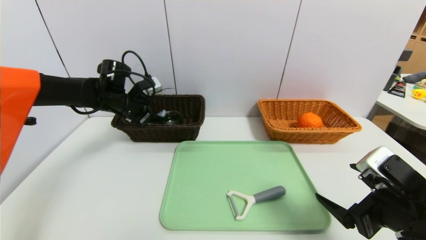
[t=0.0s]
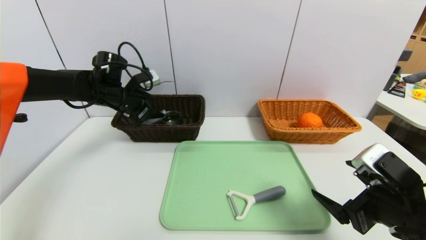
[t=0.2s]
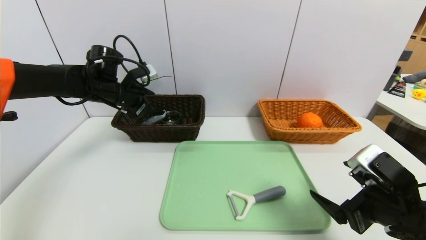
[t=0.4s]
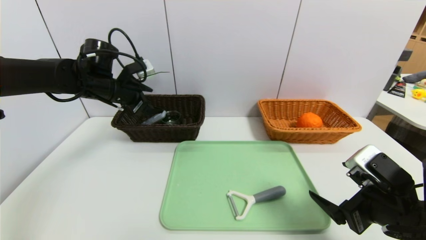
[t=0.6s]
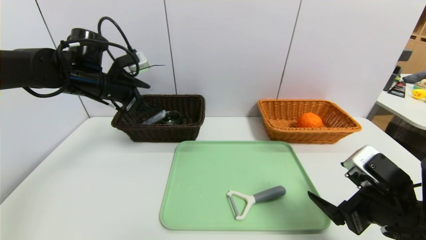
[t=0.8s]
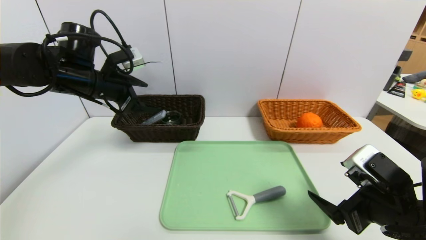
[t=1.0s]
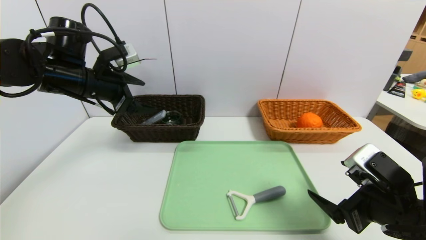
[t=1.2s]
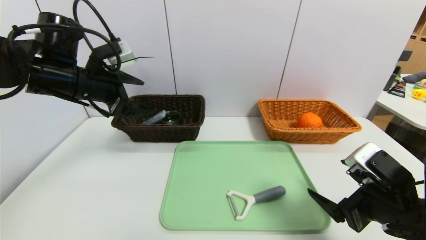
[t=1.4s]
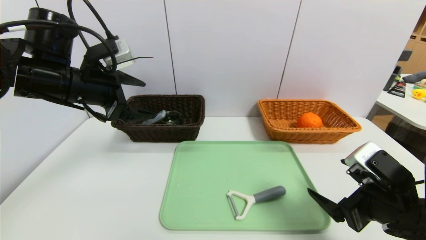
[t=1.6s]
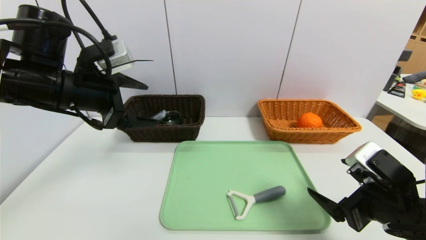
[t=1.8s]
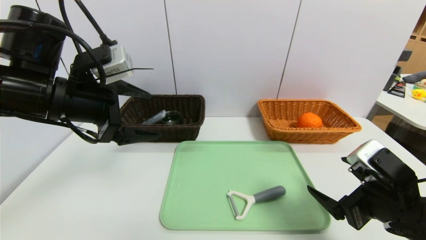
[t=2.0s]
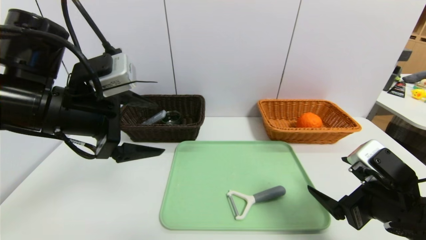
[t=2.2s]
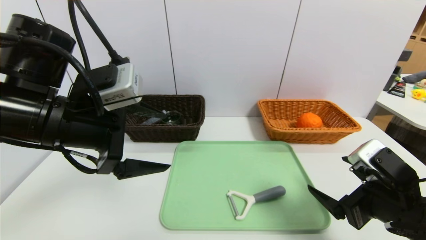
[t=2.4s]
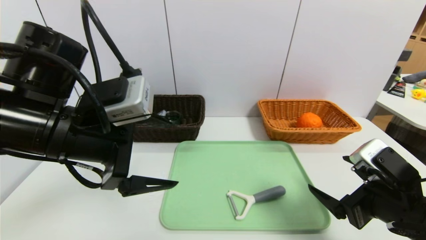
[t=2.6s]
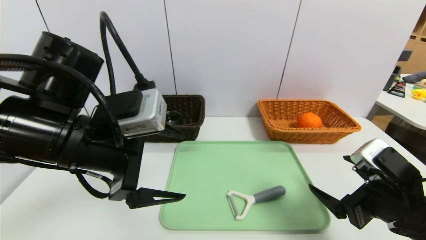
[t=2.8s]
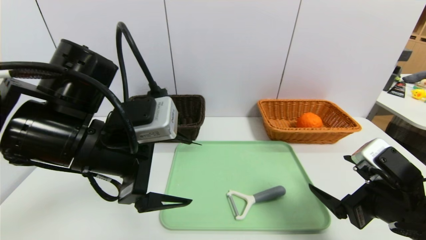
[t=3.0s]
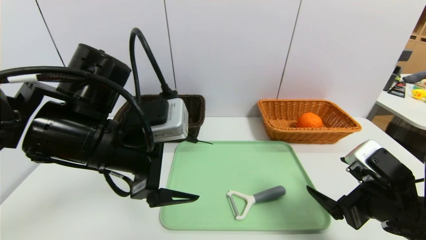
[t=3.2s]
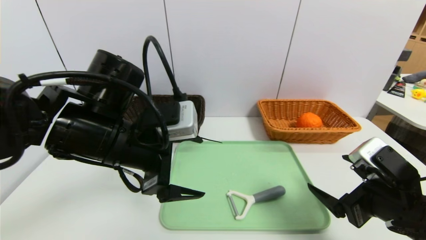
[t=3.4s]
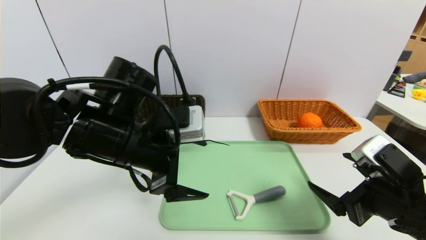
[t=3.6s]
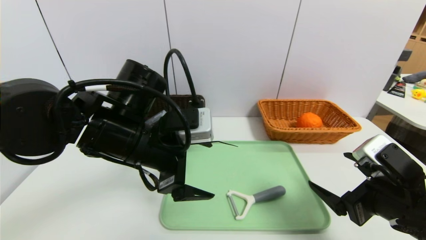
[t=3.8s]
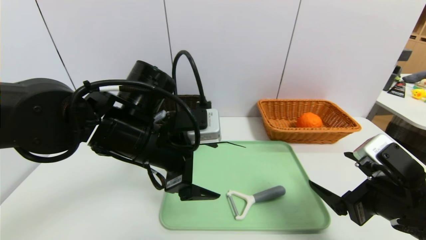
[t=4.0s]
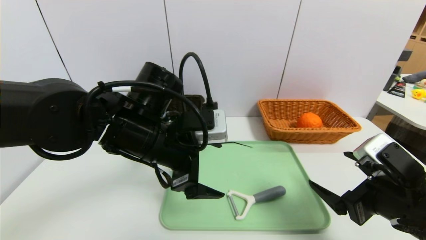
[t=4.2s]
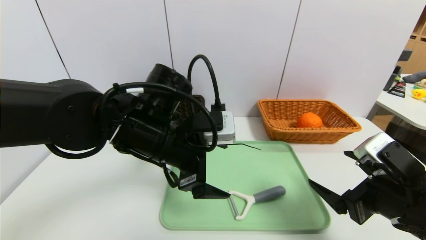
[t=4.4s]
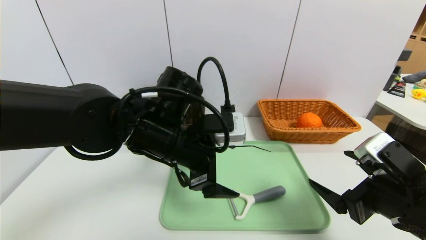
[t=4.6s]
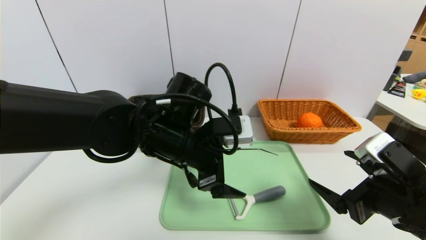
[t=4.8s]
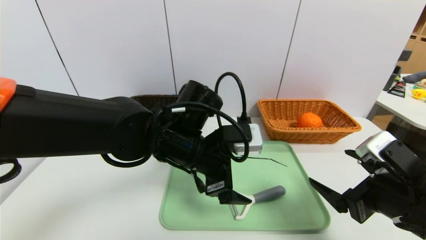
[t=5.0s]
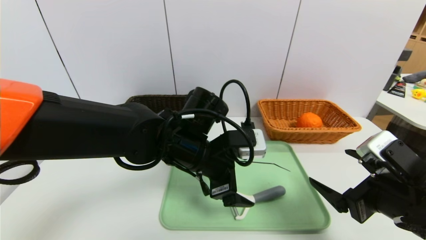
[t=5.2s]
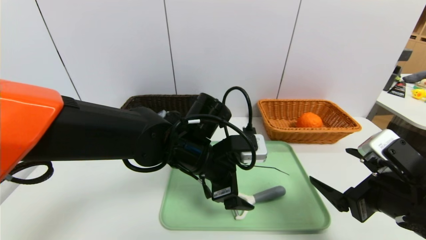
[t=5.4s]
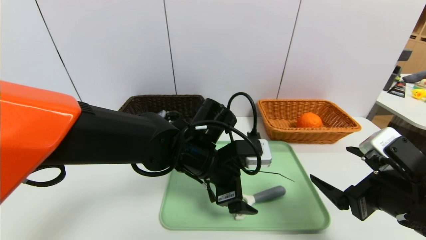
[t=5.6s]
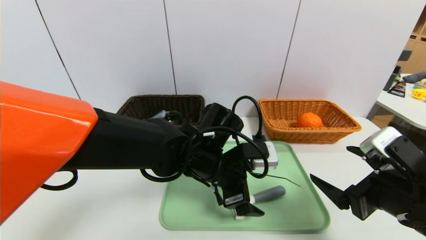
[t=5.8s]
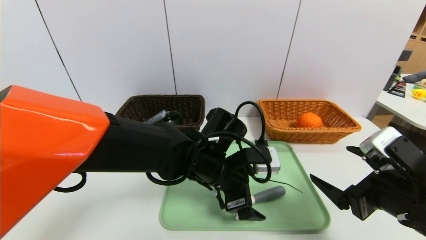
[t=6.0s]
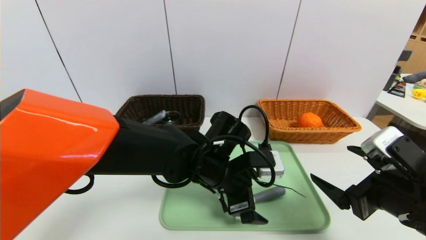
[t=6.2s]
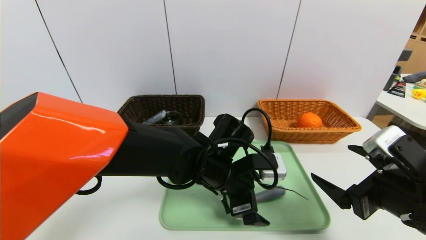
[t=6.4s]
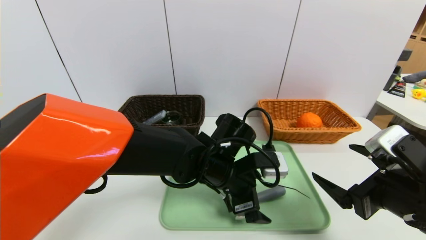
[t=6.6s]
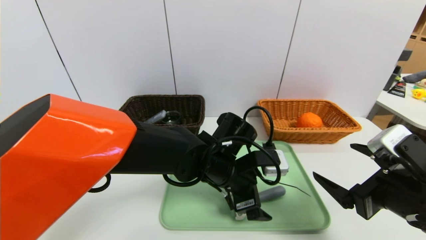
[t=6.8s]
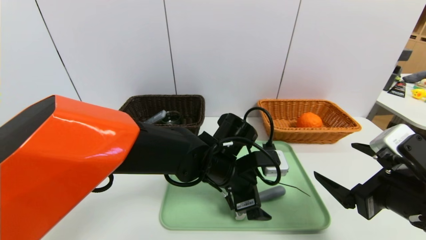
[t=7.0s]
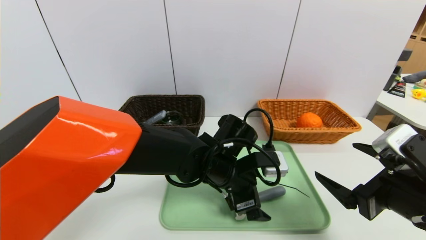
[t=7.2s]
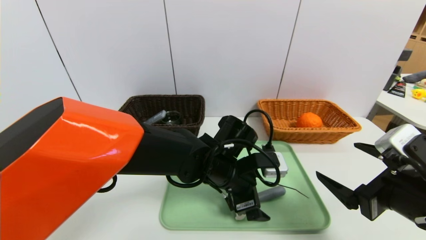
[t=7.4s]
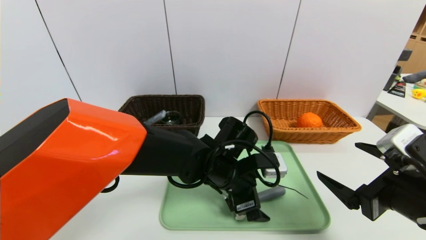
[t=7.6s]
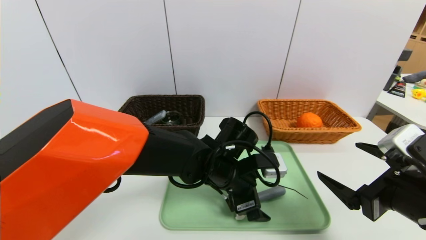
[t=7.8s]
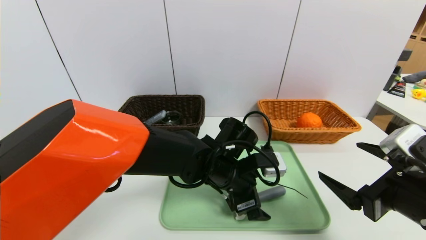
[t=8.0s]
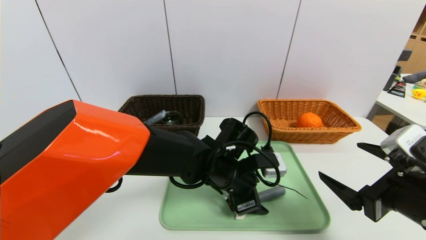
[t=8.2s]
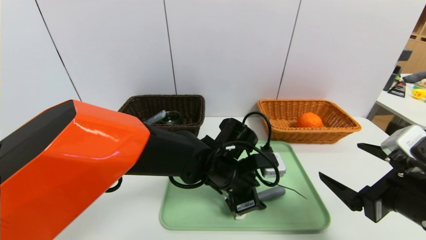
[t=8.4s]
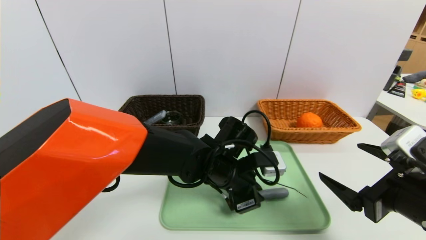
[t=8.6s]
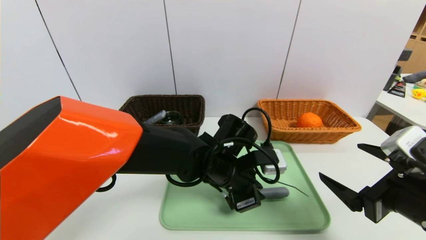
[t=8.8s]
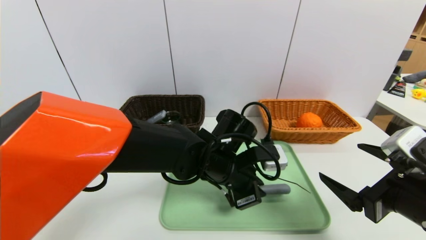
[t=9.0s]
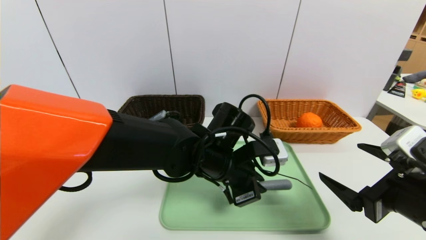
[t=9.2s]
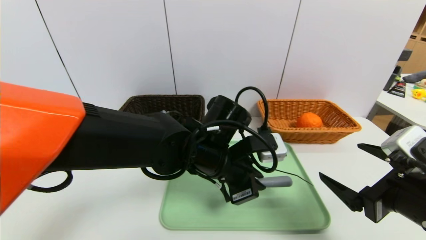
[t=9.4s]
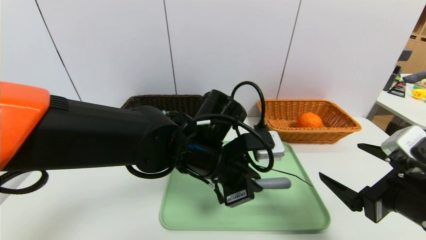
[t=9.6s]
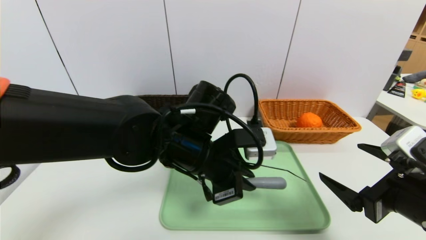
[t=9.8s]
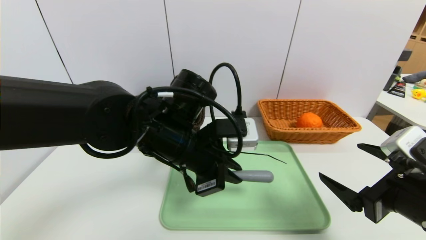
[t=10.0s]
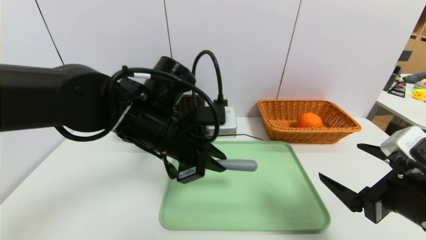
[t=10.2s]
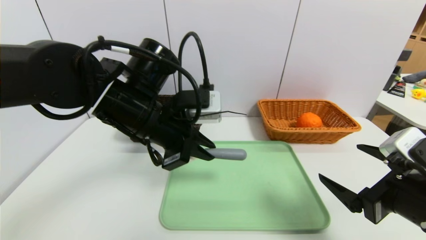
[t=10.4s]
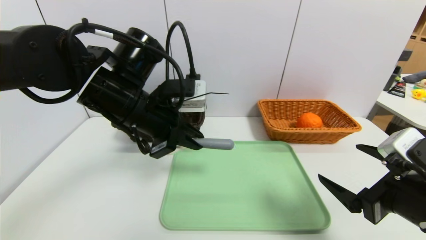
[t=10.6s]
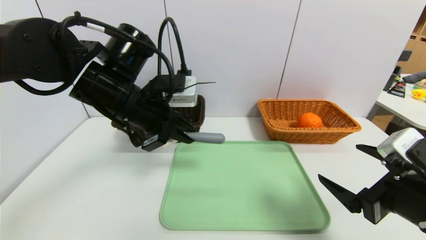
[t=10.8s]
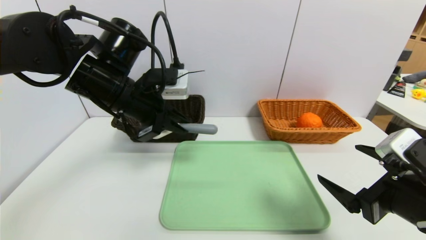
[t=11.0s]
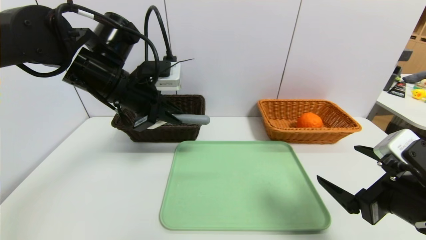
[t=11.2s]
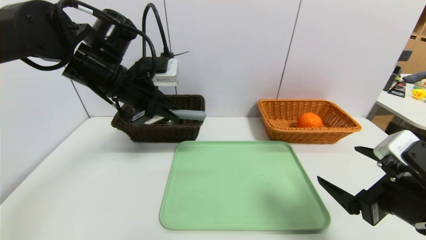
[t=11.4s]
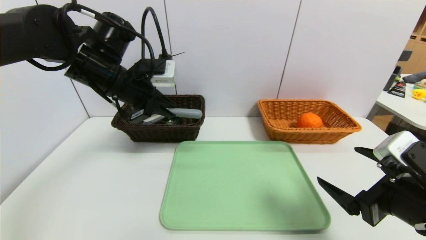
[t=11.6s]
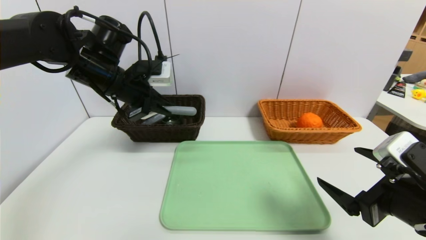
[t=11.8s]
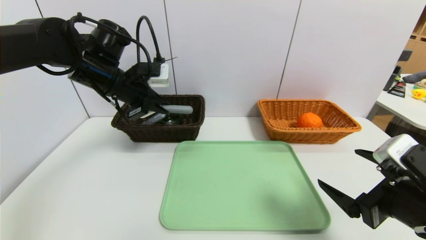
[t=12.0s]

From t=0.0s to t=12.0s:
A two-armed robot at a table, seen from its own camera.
Task of the whole recording: place the food in the right basket with the right gripper, and place the non food items in the left basket with the left gripper.
From t=0.0s to t=1.6s: The left gripper moves backward and upward, roughly 15 cm.
From t=1.6s to t=3.0s: The left gripper is displaced backward and to the right by some 15 cm.
From t=3.0s to t=4.4s: The left gripper is displaced to the right by roughly 5 cm.
From t=4.4s to t=6.0s: The left gripper is displaced to the right and downward by some 10 cm.
From t=6.0s to t=7.6s: The grippers stay close to where they were, moving slightly.
From t=7.6s to t=9.0s: The left gripper closes.
From t=9.0s to t=10.4s: The left gripper travels to the left and upward by some 15 cm.
From t=10.4s to t=12.0s: The left gripper goes roughly 15 cm forward and to the left.

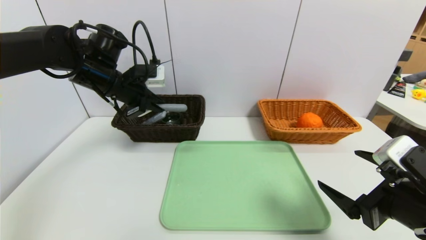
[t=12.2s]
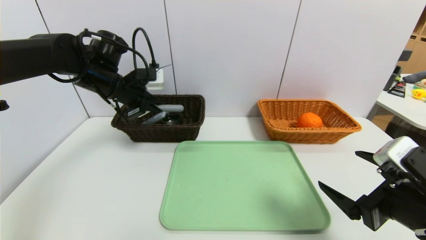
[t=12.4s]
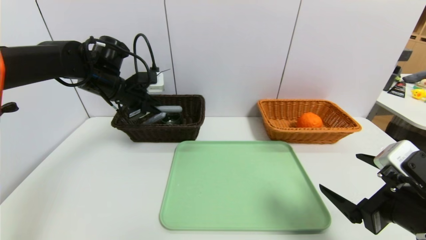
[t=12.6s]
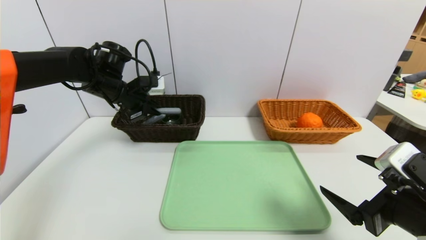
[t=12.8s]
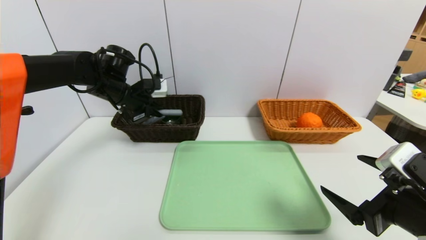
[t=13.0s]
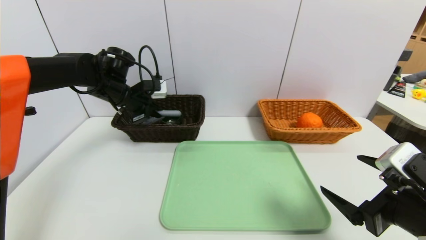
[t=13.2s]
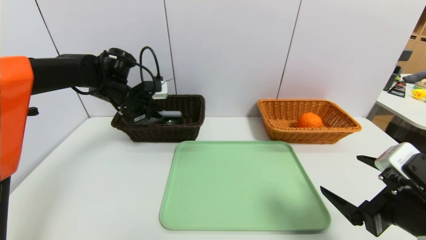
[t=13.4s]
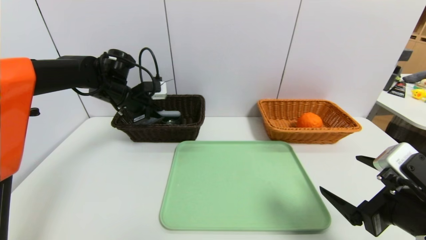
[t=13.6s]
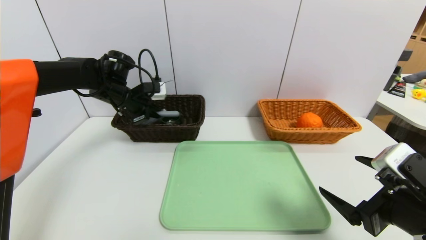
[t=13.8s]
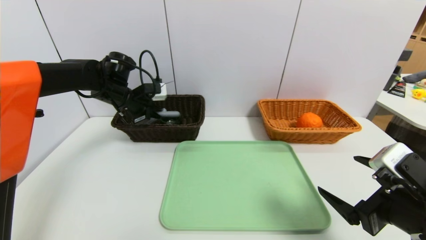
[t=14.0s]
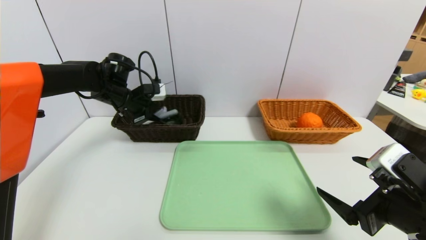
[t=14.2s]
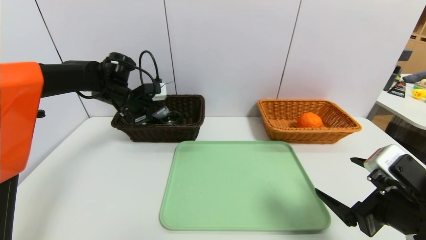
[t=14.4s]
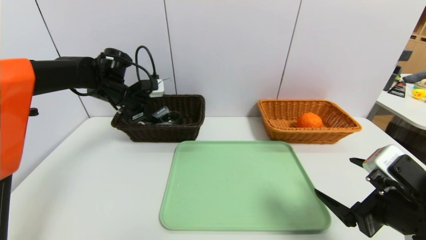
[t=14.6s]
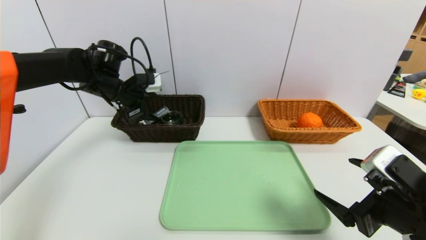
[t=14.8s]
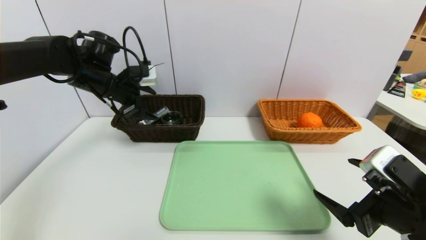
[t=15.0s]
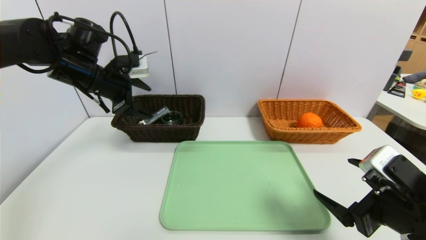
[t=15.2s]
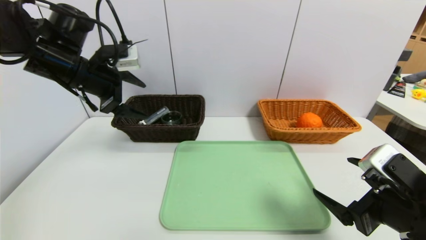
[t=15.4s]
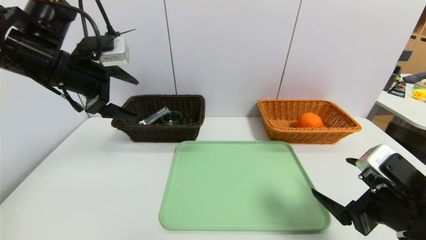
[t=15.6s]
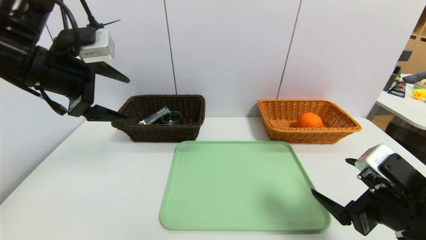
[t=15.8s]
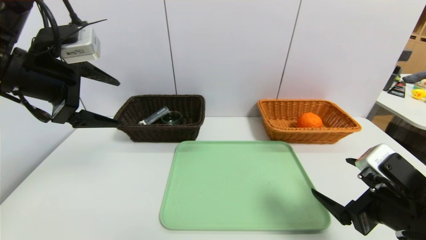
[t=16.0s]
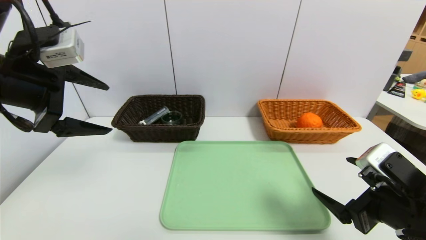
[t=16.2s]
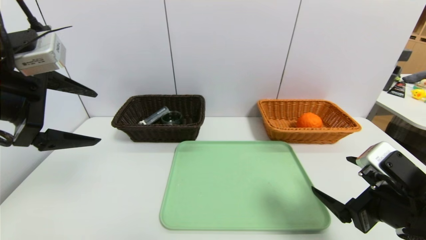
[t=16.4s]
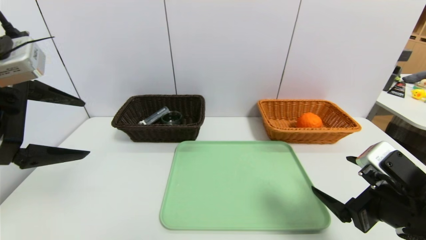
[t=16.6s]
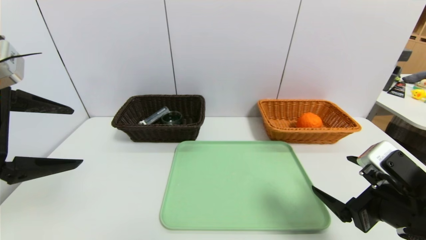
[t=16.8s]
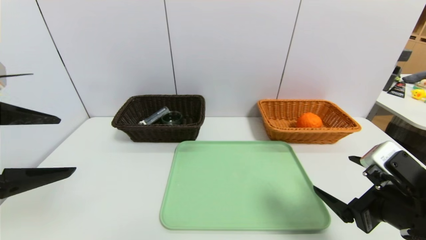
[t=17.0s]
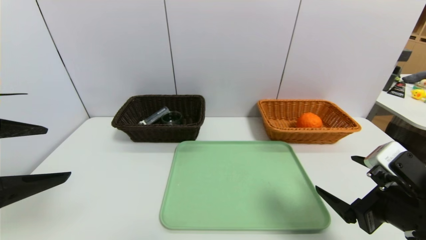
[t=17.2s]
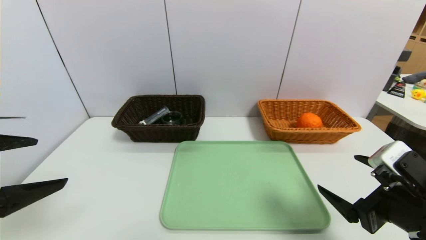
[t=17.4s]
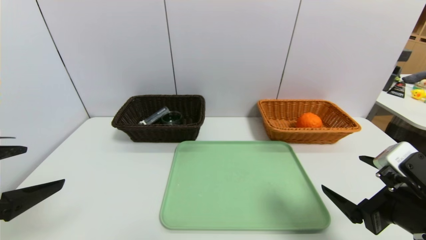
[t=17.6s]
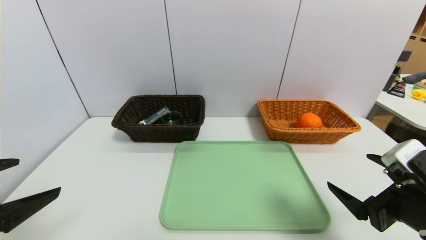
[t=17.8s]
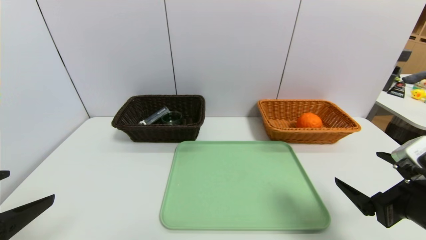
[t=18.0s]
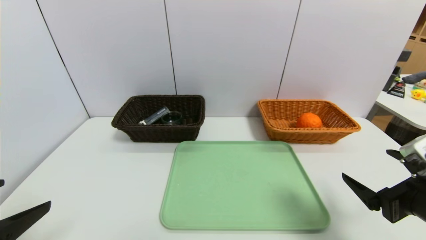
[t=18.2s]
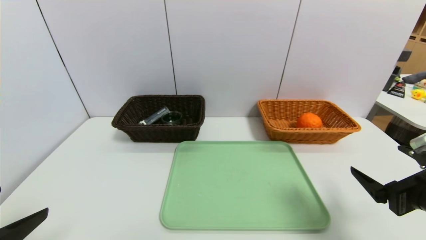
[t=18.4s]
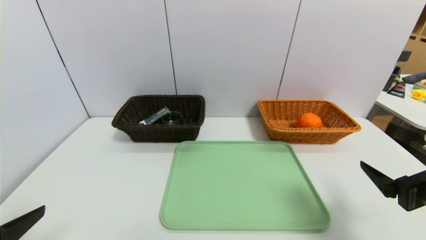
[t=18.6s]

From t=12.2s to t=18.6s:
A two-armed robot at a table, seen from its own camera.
Task of the whole recording: place the food in the right basket with the right gripper, and place the non food items in the left basket with the left gripper.
Step, from t=12.2s to t=15.2s: Grasp the peeler and put it in the left basket.
From t=12.2s to t=13.8s: The left gripper shifts approximately 10 cm forward and downward.
From t=13.8s to t=15.4s: The left gripper heads backward and upward, covering about 15 cm, and opens its fingers.
From t=15.4s to t=17.0s: The left gripper moves backward, approximately 20 cm.
From t=17.0s to t=18.6s: The left gripper travels downward and backward by roughly 10 cm. The right gripper changes place by some 5 cm.
